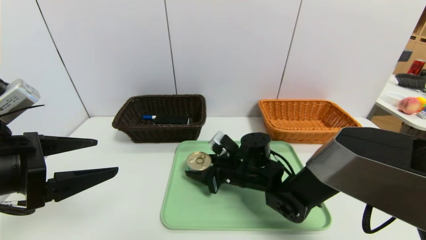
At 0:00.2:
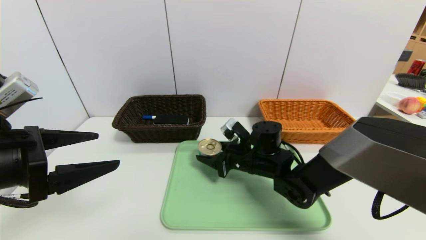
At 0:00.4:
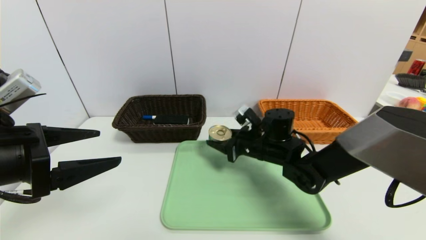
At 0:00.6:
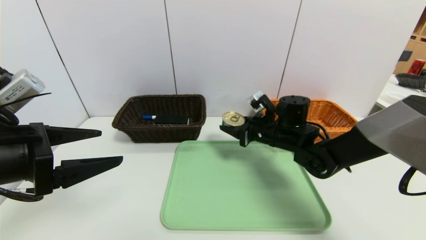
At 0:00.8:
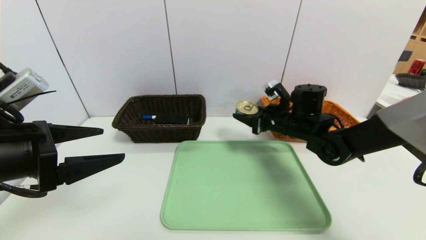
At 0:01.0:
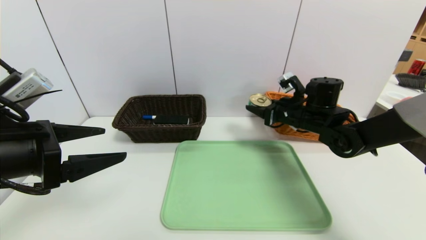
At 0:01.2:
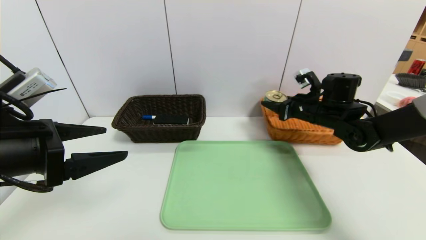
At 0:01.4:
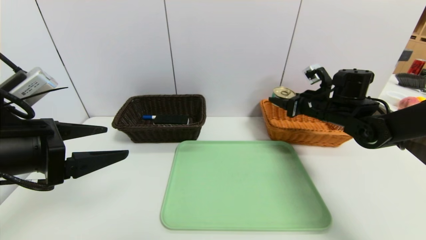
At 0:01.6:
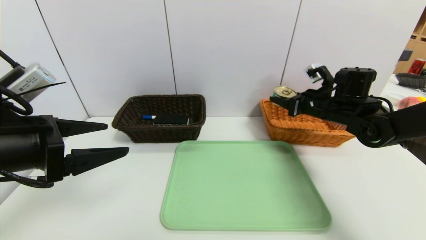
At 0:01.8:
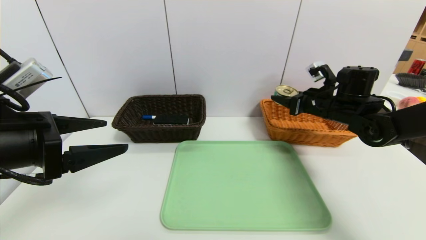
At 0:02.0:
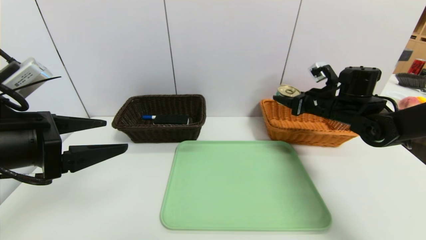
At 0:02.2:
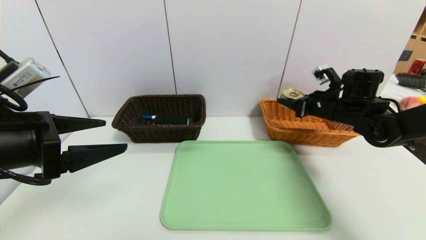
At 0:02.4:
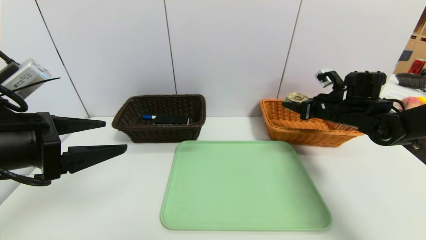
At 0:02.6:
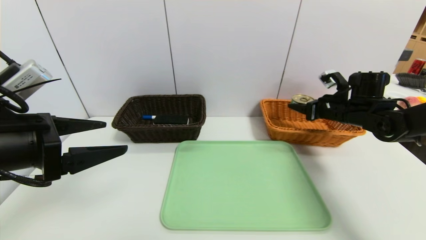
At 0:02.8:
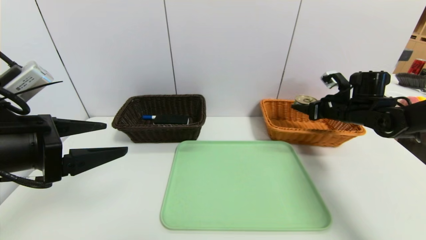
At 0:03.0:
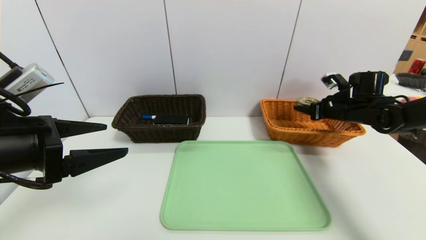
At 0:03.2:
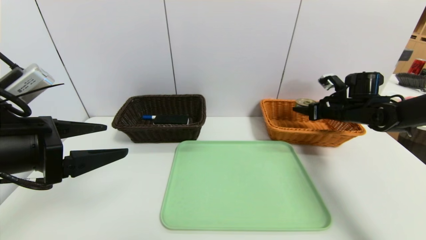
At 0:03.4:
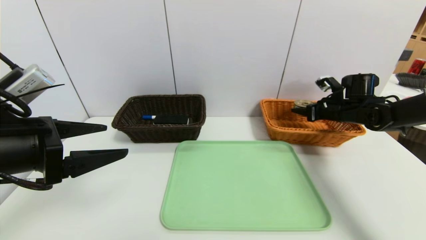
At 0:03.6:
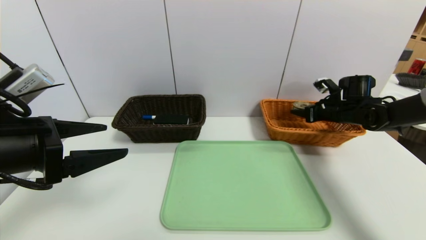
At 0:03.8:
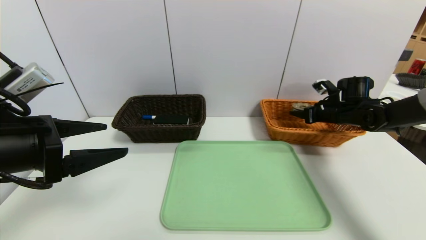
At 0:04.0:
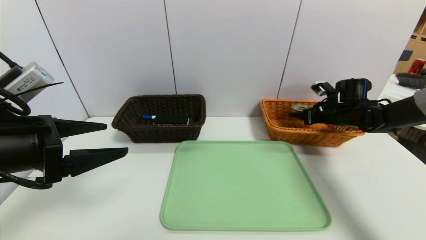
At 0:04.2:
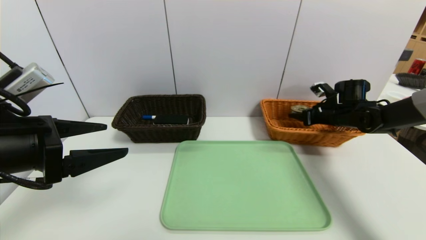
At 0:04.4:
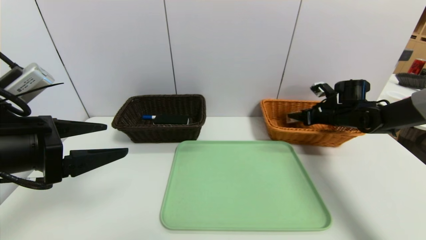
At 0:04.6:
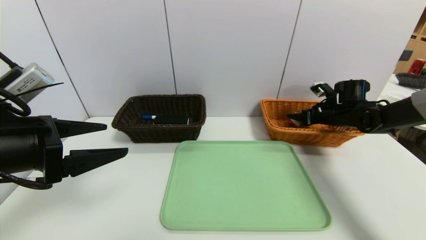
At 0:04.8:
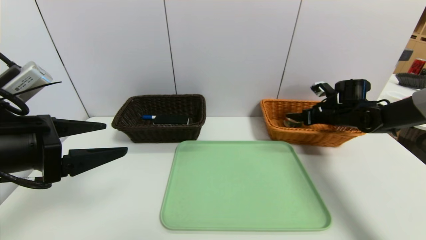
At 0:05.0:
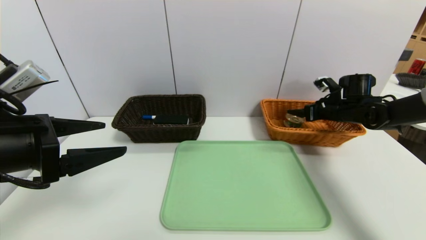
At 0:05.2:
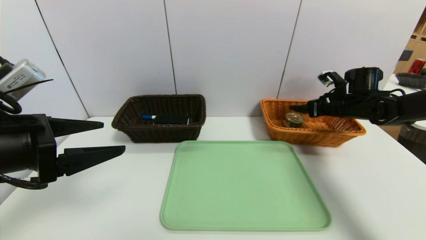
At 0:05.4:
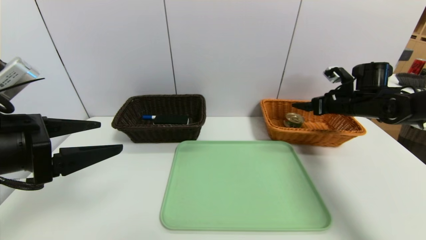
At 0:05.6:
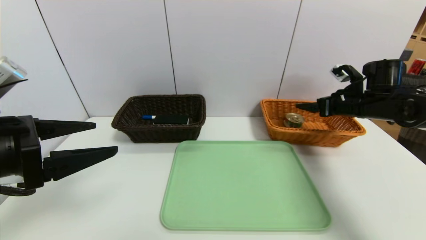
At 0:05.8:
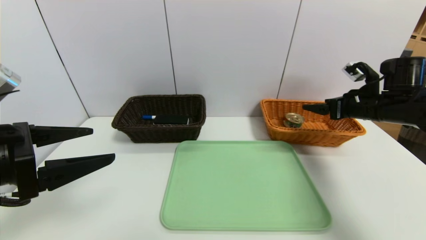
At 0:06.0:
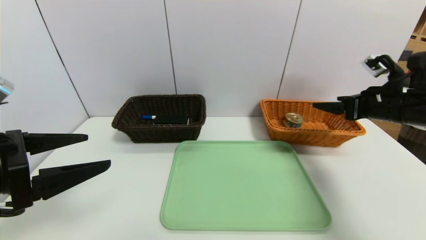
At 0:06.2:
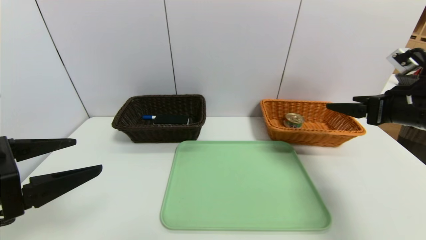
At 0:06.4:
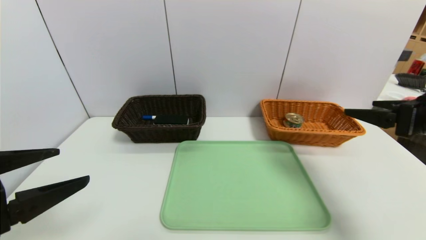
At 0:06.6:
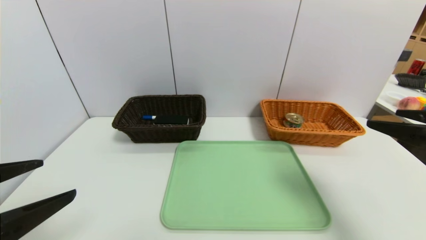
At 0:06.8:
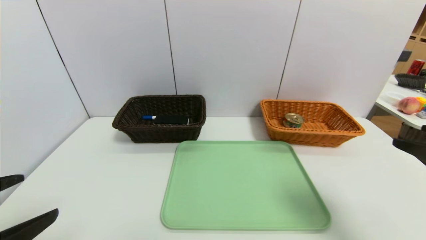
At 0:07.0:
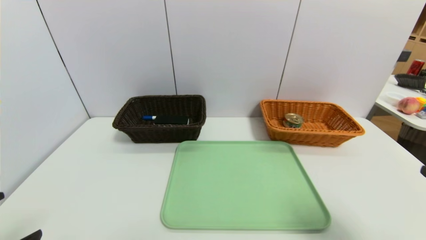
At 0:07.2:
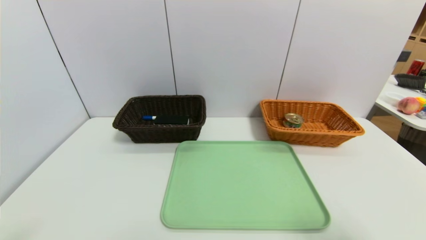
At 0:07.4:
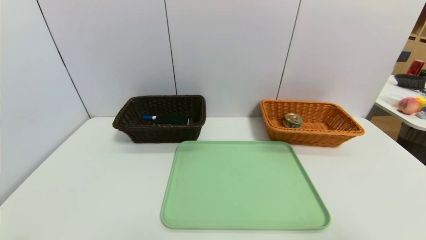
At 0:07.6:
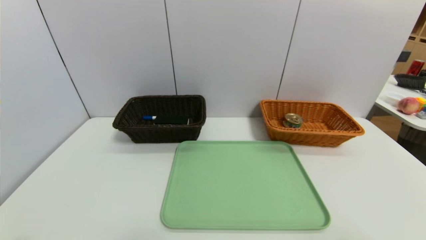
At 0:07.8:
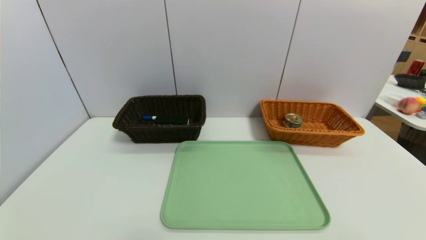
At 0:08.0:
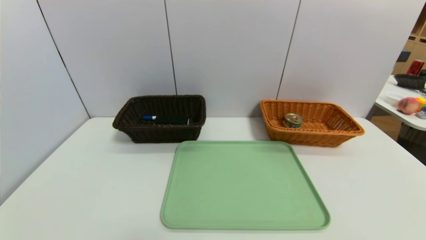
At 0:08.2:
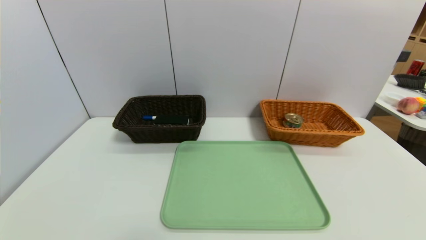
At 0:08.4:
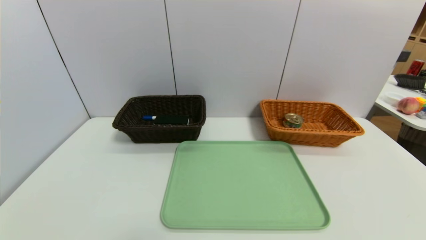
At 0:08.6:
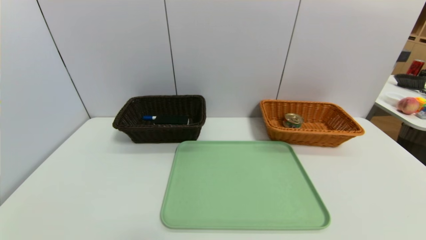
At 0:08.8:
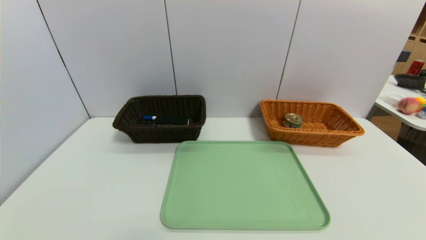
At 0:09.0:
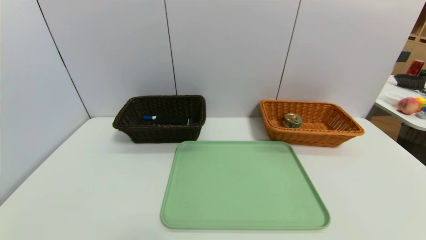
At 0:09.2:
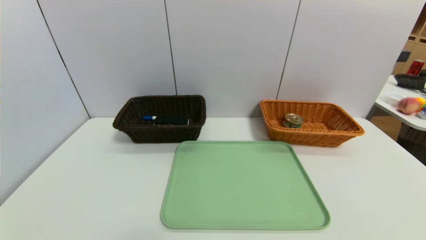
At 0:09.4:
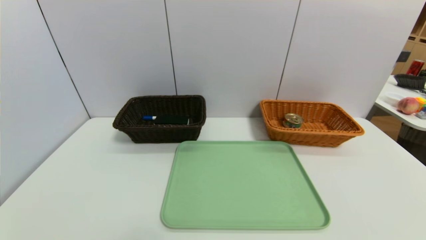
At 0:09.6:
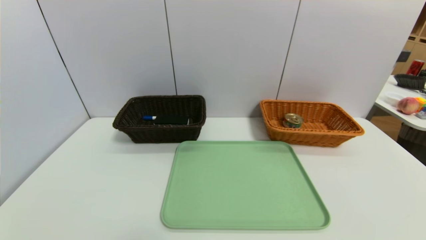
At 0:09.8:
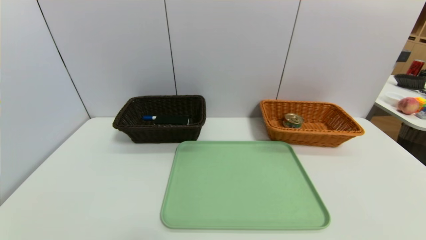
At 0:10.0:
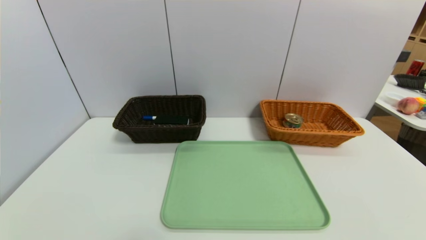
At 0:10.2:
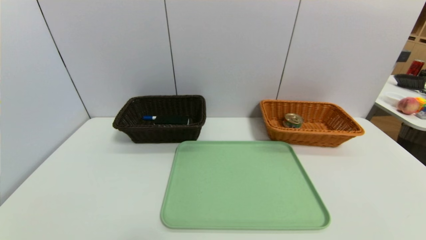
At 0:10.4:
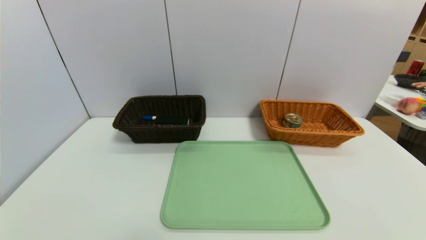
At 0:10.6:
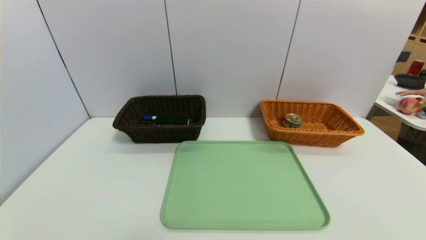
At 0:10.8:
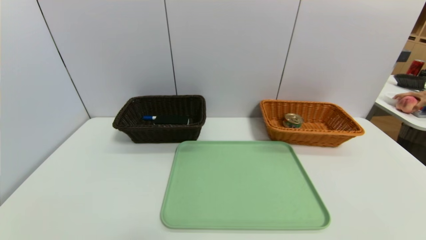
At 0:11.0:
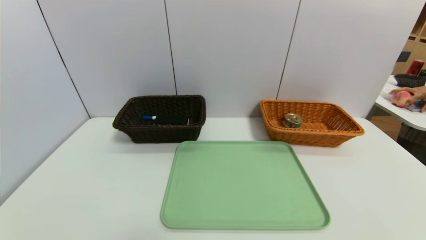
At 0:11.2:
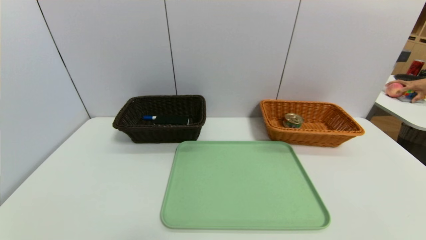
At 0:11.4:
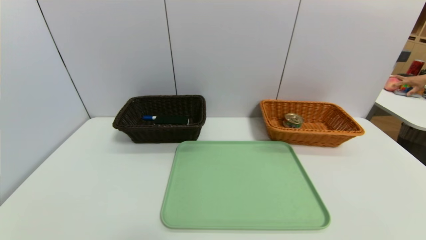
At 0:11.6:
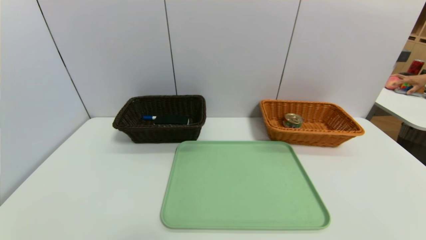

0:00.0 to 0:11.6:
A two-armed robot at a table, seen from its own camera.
Task of the whole recording: place the food in the right basket with the right gripper, and place the non food items in the left basket with the left gripper.
Step, 0:00.0 to 0:05.2: Grasp the can and put it in the right basket.
0:00.0 to 0:01.4: The right gripper goes roughly 25 cm to the right, upward and forward.
0:01.4 to 0:02.8: The right gripper travels to the right by about 5 cm.
0:02.8 to 0:04.4: The right gripper moves about 5 cm.
0:04.4 to 0:05.8: The right gripper goes approximately 15 cm backward and upward, and opens its fingers.
0:05.8 to 0:07.2: The right gripper heads backward, covering some 30 cm; the left gripper moves backward and downward, some 15 cm.
0:10.2 to 0:11.6: There are only small adjustments of the grippers.
